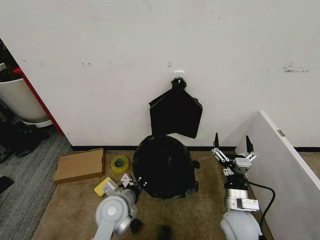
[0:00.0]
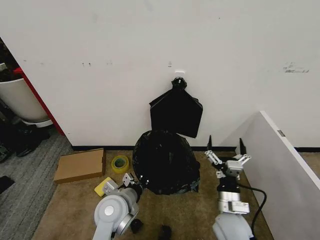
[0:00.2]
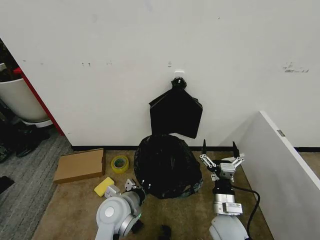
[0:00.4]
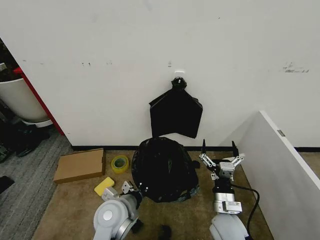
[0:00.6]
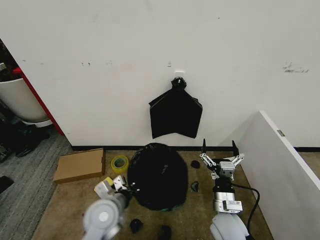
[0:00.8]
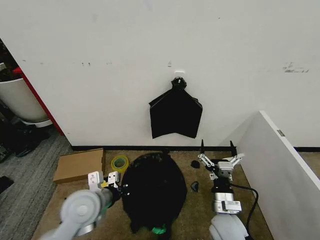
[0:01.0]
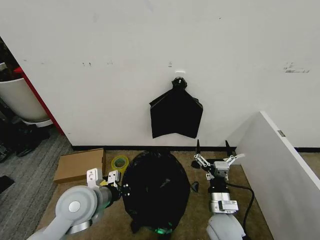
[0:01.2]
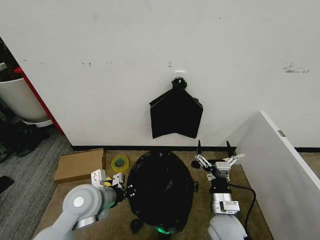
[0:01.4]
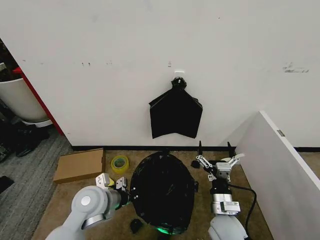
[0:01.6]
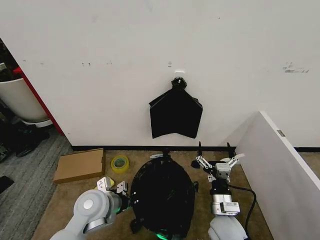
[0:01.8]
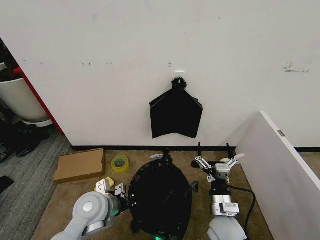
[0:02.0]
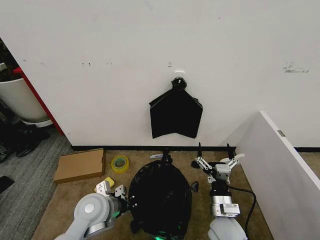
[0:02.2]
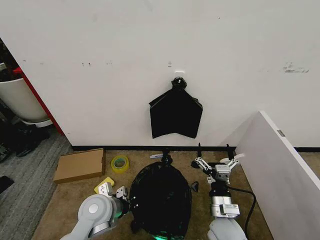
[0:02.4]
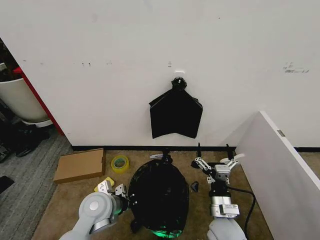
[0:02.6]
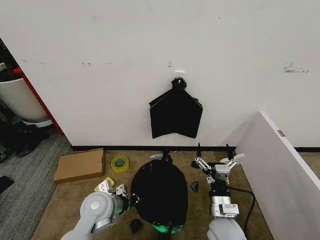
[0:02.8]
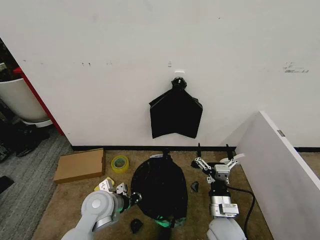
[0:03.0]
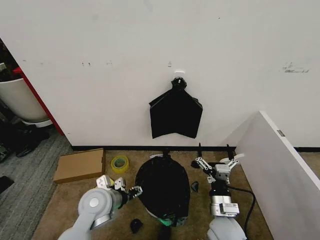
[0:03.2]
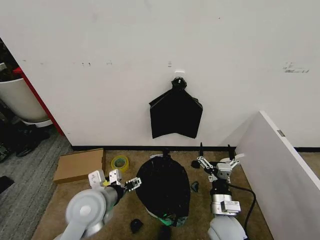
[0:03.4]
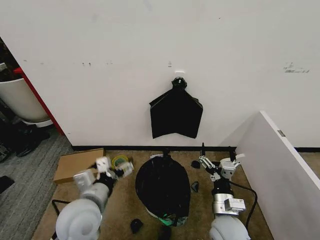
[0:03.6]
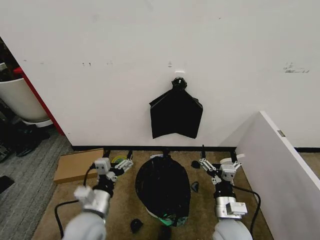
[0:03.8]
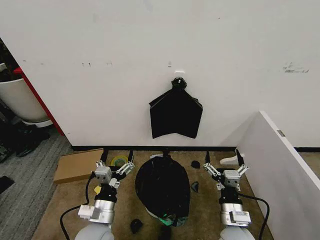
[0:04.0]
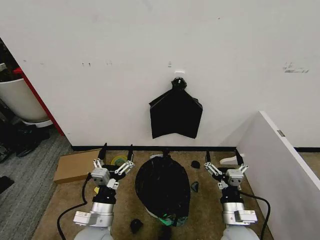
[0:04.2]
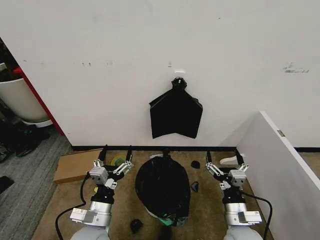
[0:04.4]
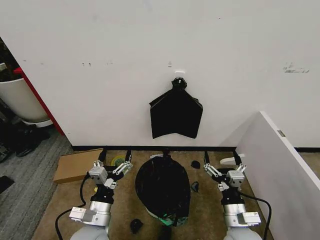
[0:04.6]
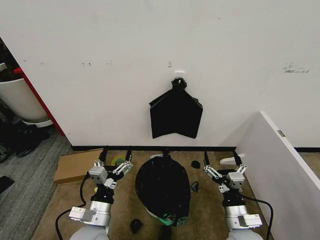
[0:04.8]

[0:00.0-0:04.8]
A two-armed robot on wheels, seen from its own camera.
Task of the whole recording: Place the garbage bag over the trash bin.
0:00.0 to 0:01.6: The left gripper is displaced to the left by roughly 5 cm.
0:01.6 to 0:03.2: The left gripper opens up.
0:03.2 to 0:04.8: The left gripper travels backward by roughly 10 cm, goes upward and returns, roughly 5 cm each way, and opens up; the right gripper shifts by about 5 cm.
